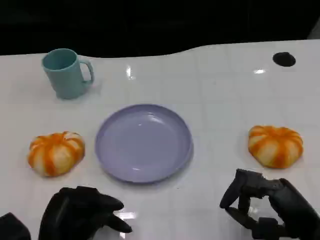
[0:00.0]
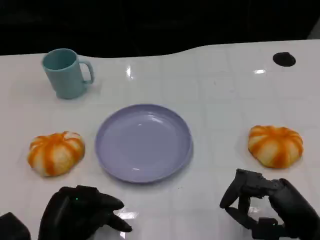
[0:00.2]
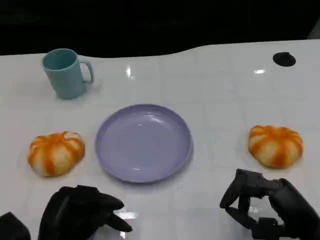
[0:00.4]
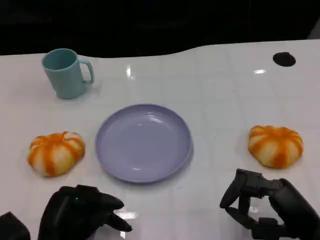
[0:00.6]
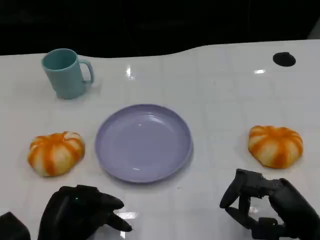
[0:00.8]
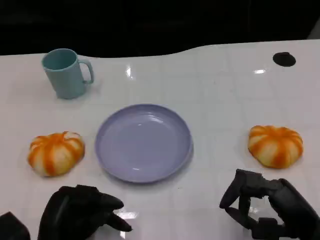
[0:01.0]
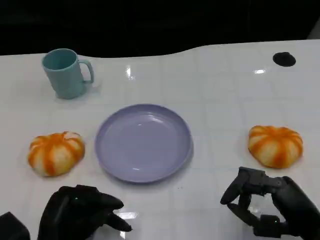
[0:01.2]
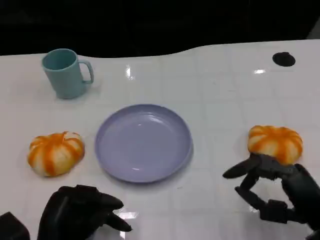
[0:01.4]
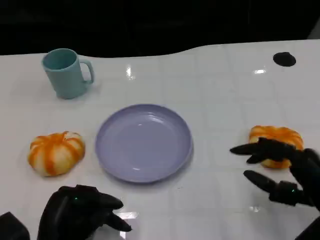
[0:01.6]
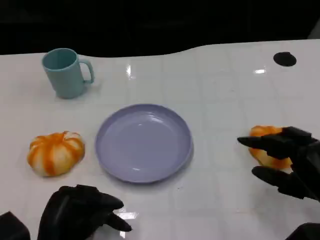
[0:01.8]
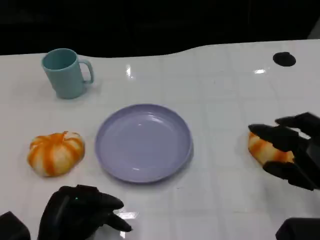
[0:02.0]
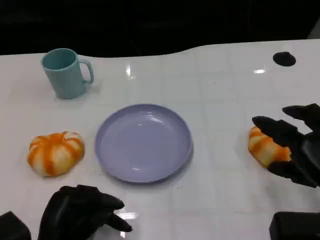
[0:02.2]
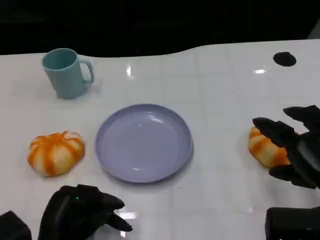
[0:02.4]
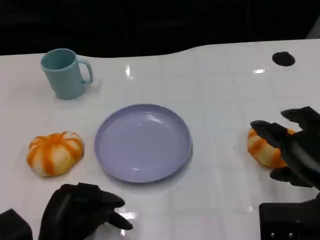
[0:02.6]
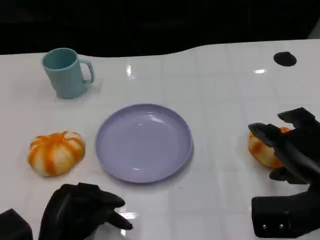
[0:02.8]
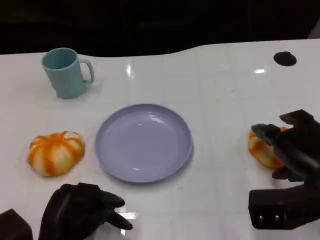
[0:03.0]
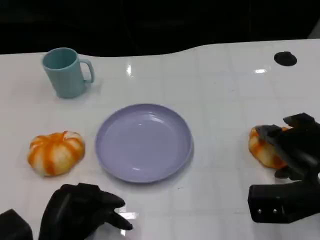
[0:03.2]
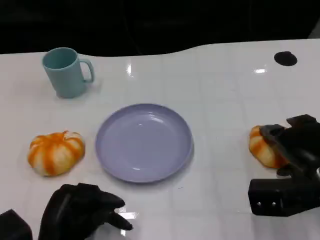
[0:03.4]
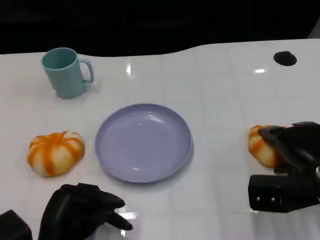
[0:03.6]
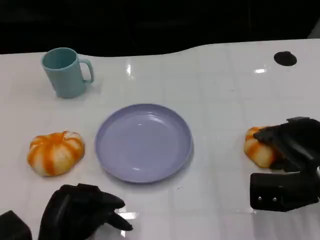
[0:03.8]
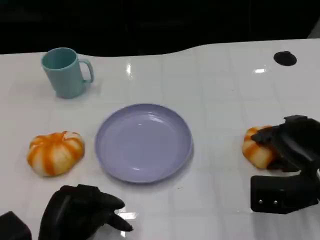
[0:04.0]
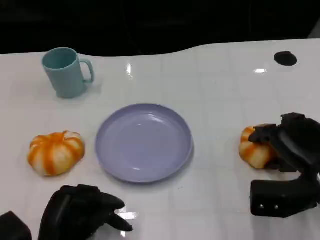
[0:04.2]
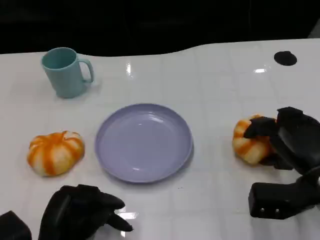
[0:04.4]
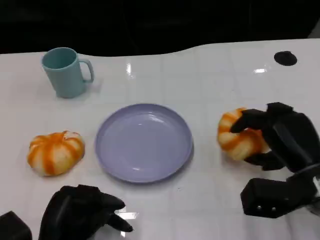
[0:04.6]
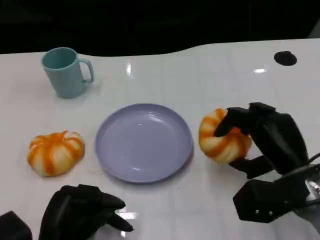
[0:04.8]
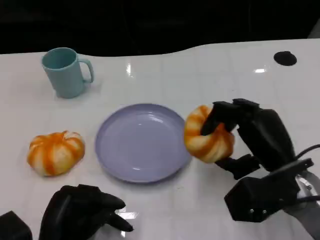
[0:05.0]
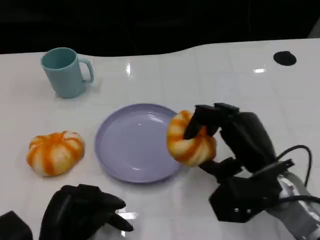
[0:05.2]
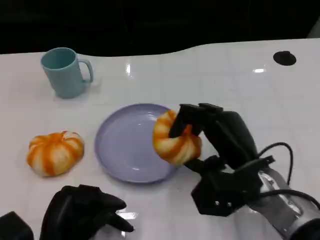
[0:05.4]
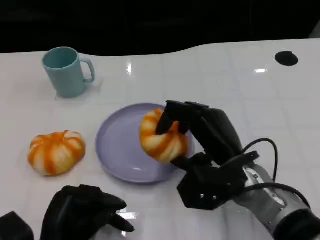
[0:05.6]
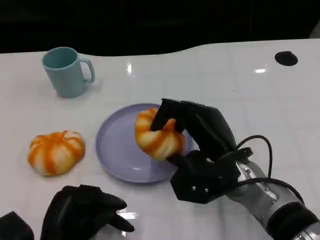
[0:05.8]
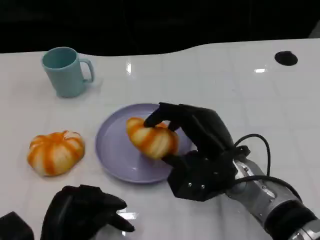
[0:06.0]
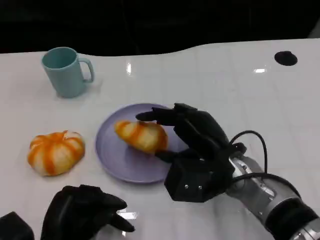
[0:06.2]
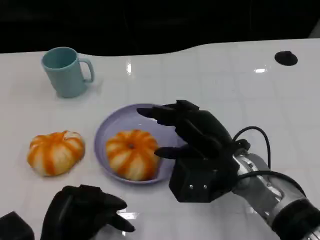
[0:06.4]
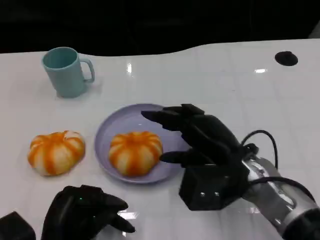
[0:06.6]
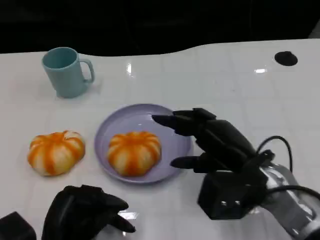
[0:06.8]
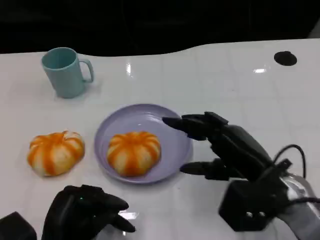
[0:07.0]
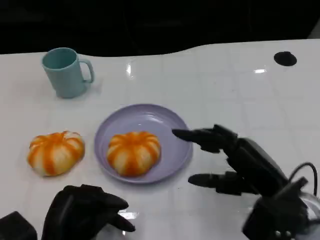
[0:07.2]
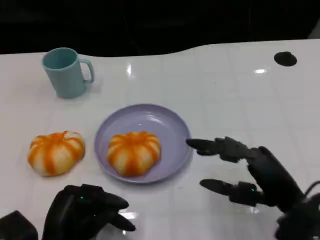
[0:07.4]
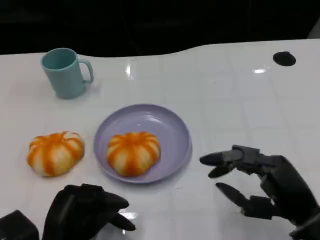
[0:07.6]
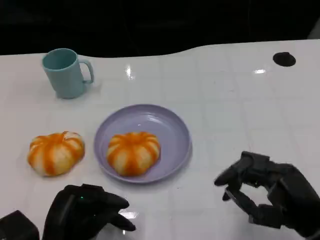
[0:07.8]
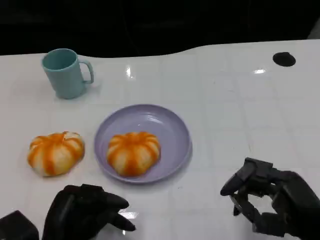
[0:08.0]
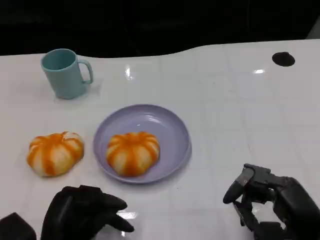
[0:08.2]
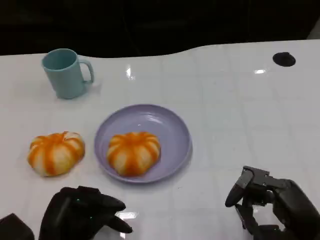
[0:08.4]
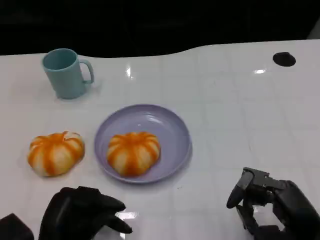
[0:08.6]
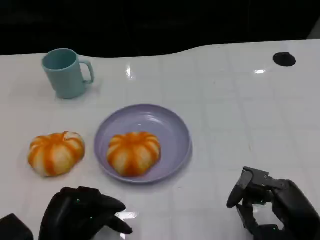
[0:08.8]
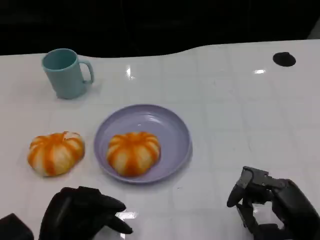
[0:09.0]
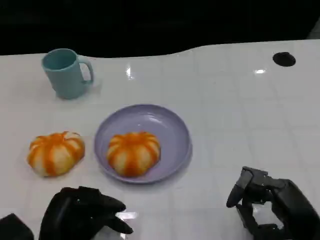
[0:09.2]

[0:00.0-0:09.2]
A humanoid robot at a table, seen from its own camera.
Task of the whole recording: Grasp the bread from the table and place it into the plate.
0:01.6 to 0:03.0: The right hand shifts by some 5 cm.
0:04.6 to 0:06.2: The right hand shifts about 10 cm to the left.
0:06.2 to 0:07.6: The right hand moves to the right and backward, approximately 15 cm.
0:07.6 to 0:09.2: The hands move only a little.

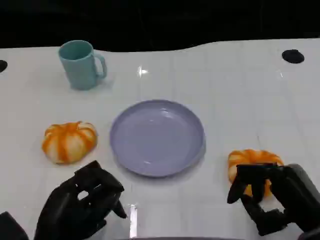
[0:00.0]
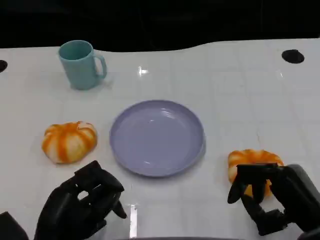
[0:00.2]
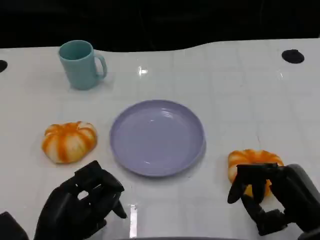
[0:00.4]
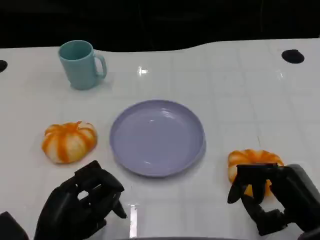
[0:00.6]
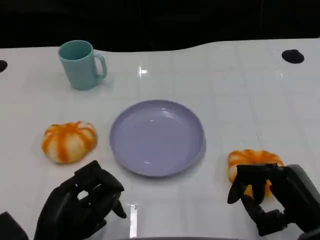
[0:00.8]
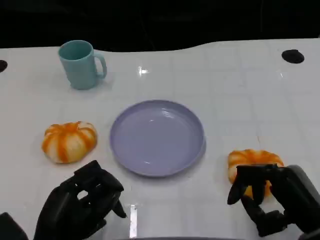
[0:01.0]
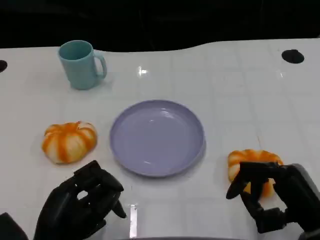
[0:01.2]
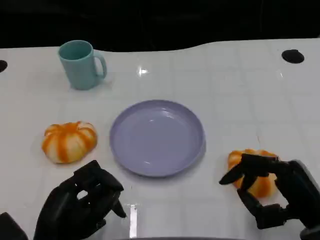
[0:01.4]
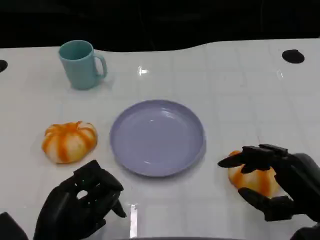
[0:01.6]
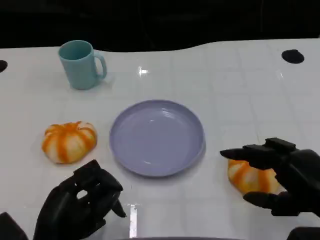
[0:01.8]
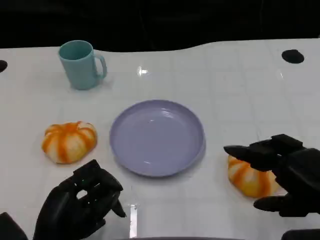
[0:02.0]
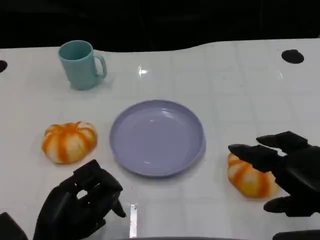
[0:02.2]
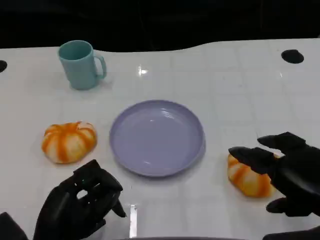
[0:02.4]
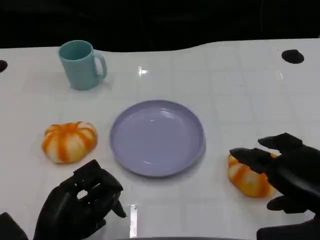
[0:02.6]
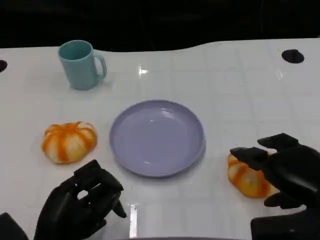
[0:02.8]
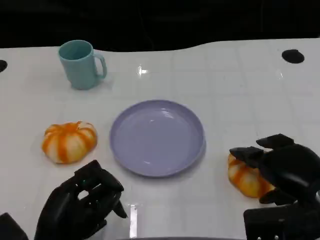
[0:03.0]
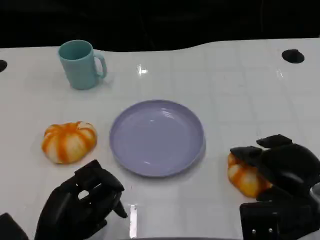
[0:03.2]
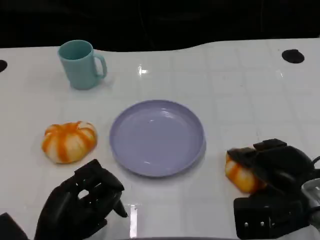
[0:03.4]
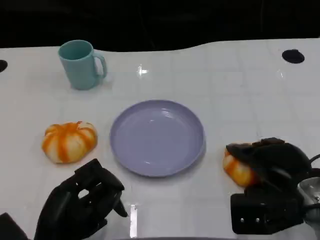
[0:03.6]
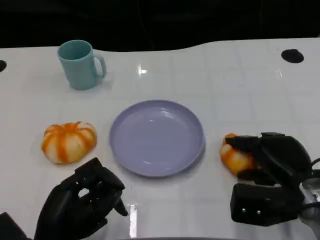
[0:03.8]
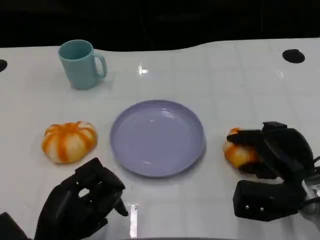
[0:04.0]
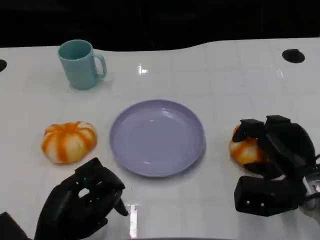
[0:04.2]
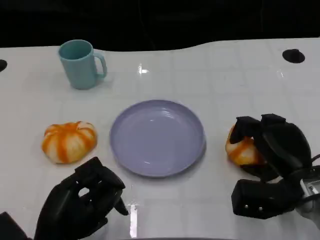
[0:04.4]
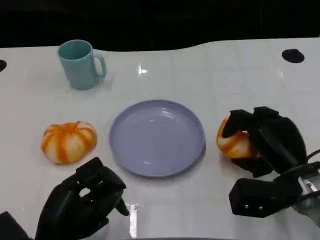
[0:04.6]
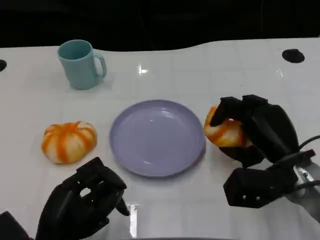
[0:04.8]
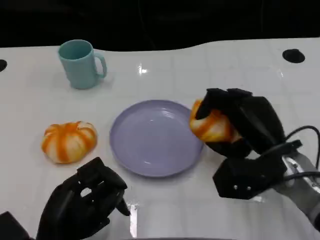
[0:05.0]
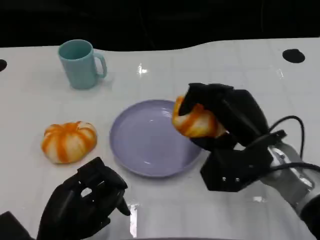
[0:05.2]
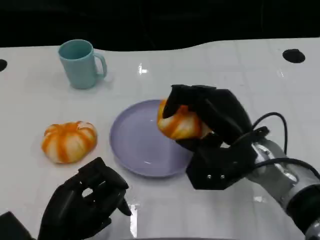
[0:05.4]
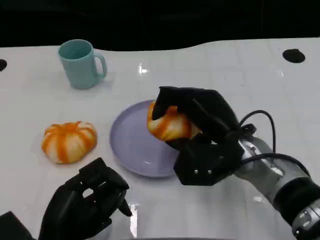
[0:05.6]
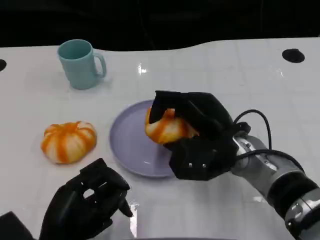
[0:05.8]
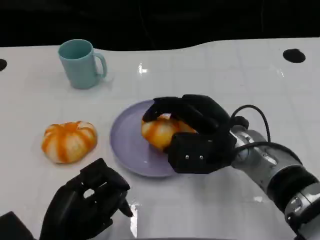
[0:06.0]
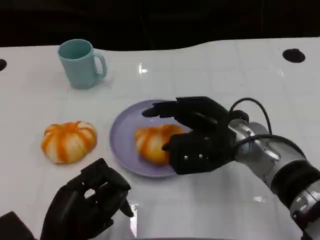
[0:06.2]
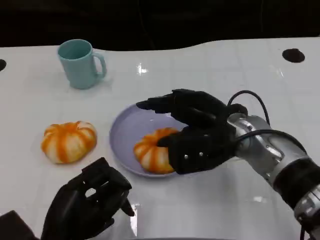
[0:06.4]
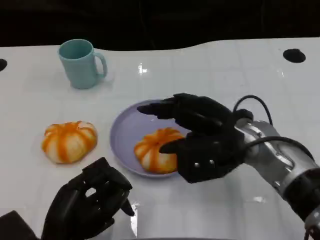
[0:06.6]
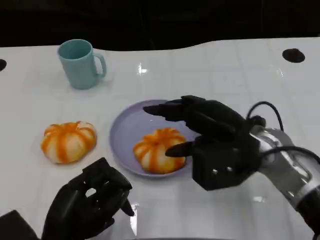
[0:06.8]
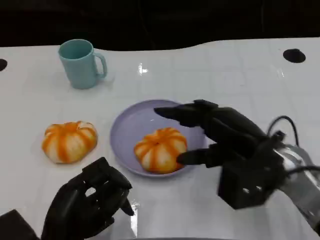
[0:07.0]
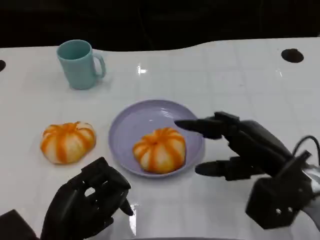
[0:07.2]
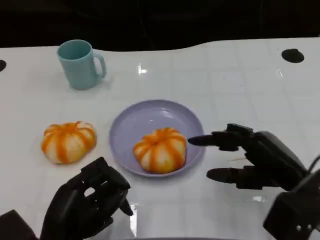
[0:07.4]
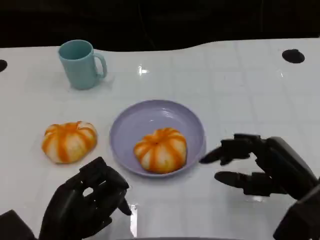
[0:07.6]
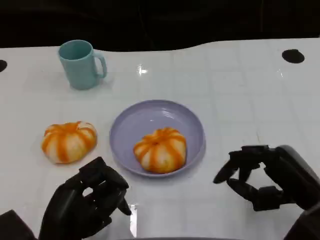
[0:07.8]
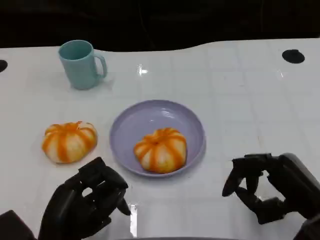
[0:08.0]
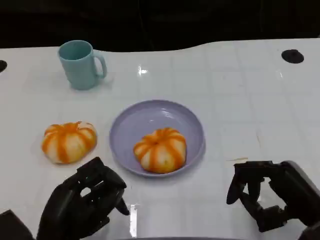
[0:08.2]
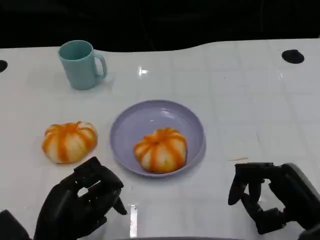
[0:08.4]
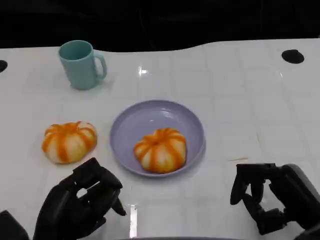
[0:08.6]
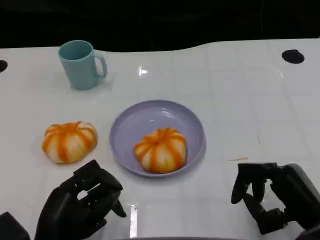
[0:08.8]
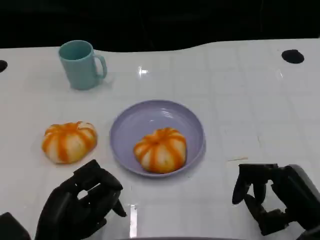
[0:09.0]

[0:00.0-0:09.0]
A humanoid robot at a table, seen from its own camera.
Task of the whole recording: Grasp the bread from the table and place it into the plate.
0:00.0 to 0:01.6: The hands stay close to where they were, moving slightly.
0:03.0 to 0:04.4: The right hand shifts some 5 cm downward.
0:04.4 to 0:06.0: The right hand is displaced to the left and upward by approximately 10 cm.
0:06.0 to 0:07.6: The right hand shifts roughly 15 cm to the right and backward.
0:07.6 to 0:09.0: The hands stay close to where they were, moving slightly.

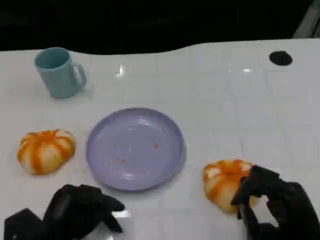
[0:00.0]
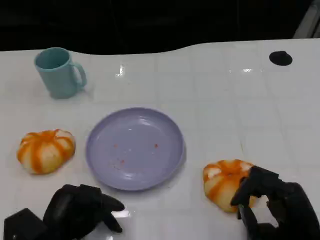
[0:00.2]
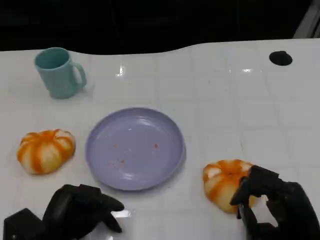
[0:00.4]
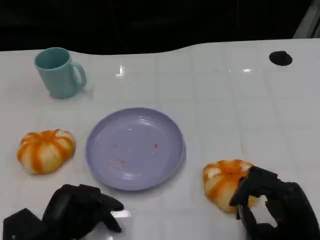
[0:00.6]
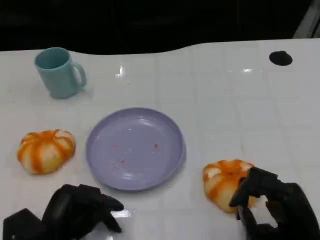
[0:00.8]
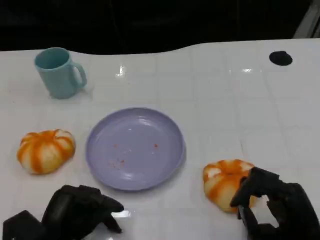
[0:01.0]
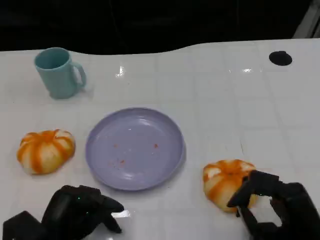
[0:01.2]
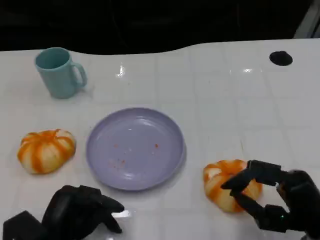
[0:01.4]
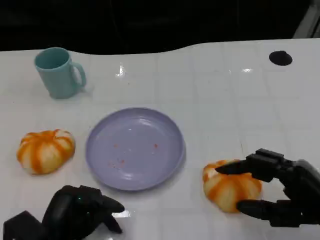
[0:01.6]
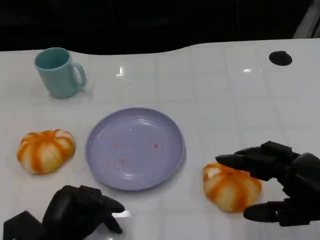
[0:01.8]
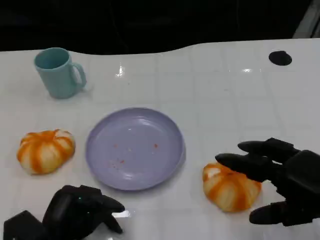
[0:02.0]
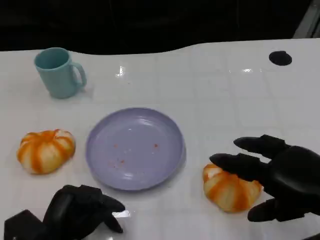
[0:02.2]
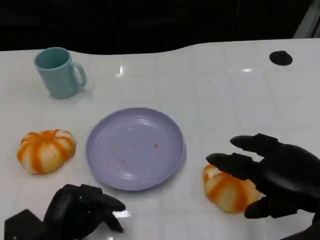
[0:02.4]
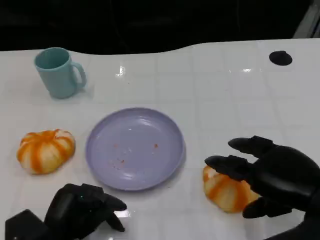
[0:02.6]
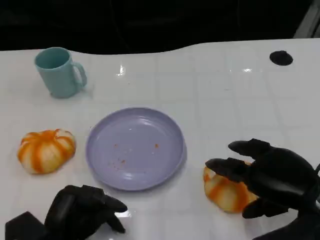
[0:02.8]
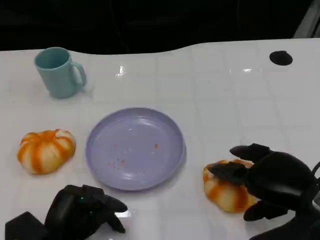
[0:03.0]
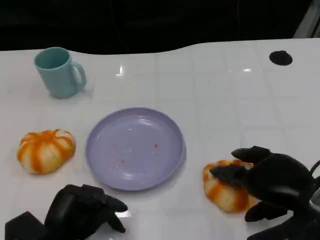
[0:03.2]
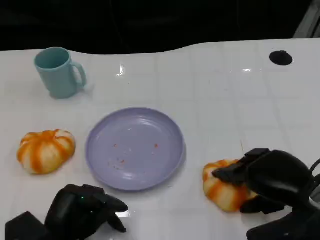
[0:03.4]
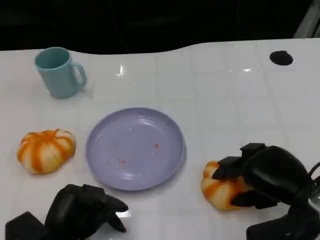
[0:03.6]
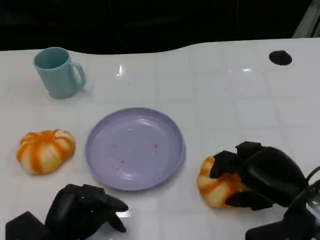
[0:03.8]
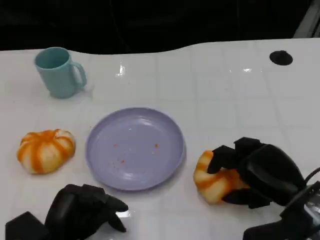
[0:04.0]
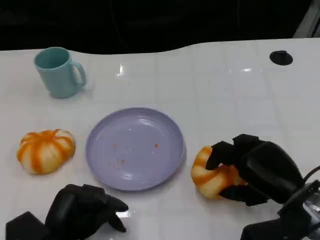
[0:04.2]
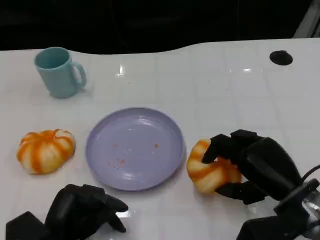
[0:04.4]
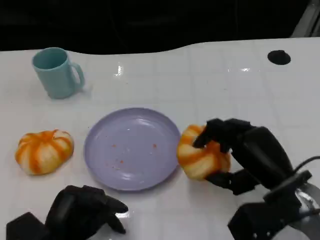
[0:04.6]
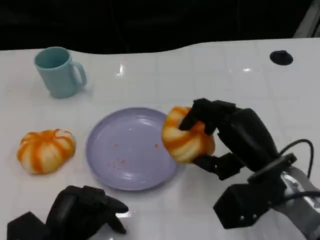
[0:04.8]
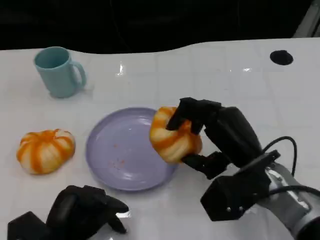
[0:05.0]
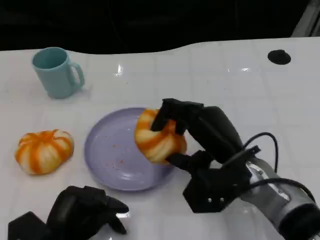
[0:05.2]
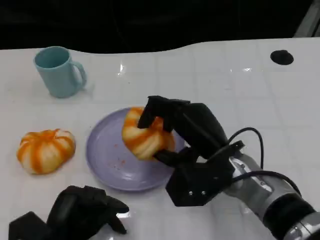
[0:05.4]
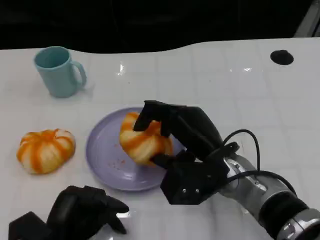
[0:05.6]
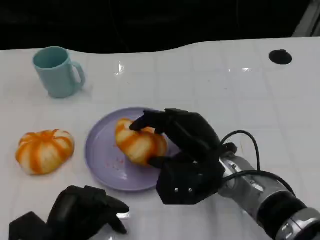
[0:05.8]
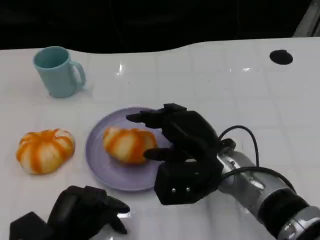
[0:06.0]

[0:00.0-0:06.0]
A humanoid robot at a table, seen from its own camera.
Task of the whole recording: Grasp the bread from the table and place it into the plate.
0:00.0 to 0:01.6: The right hand heads upward, covering approximately 5 cm.
0:03.0 to 0:04.4: The right hand changes place by some 5 cm.
0:04.4 to 0:06.0: The right hand is displaced to the left by roughly 10 cm.
